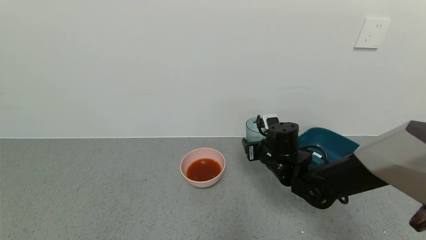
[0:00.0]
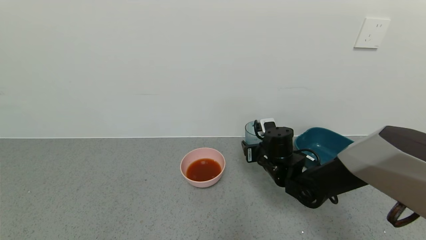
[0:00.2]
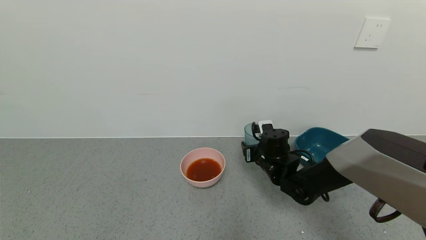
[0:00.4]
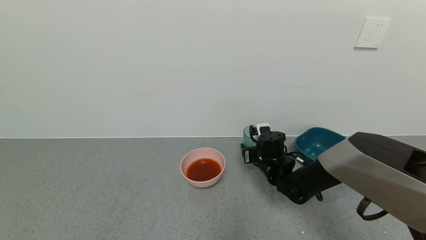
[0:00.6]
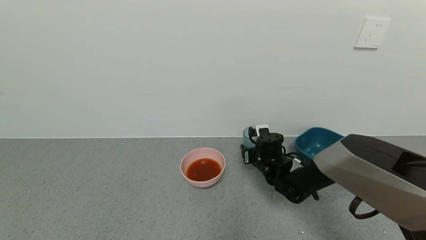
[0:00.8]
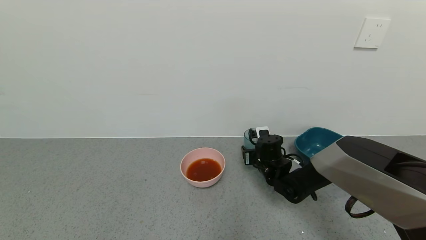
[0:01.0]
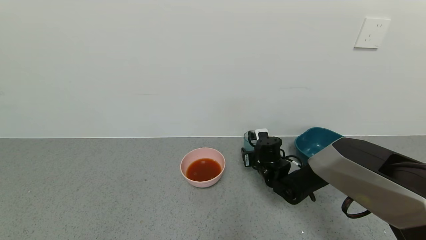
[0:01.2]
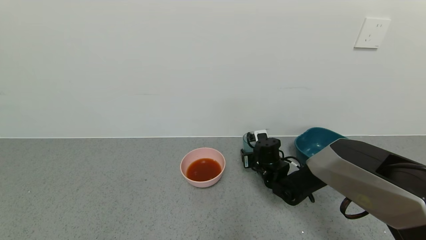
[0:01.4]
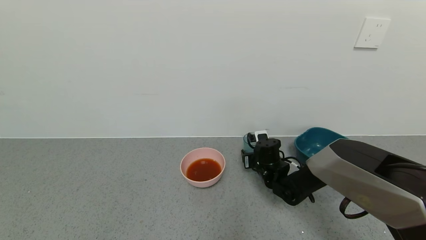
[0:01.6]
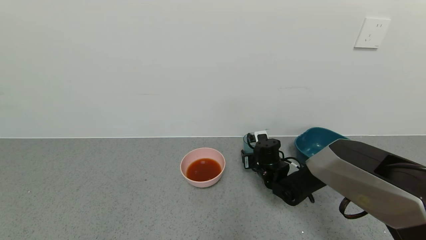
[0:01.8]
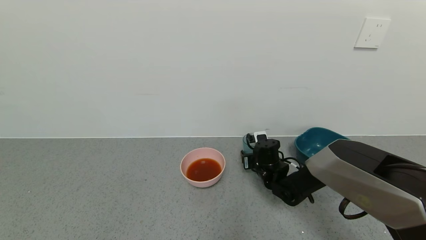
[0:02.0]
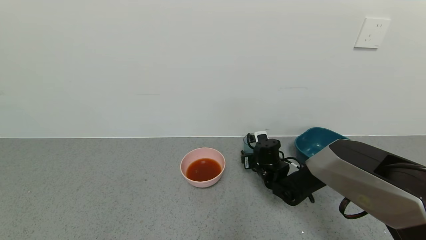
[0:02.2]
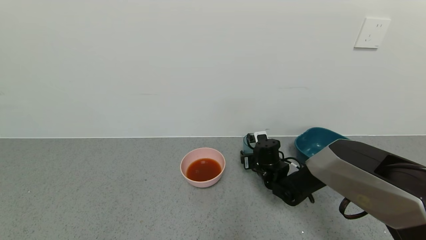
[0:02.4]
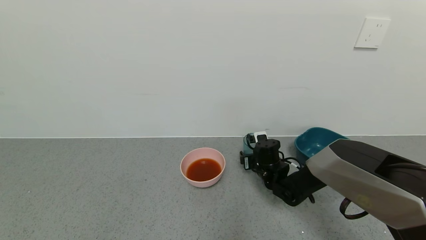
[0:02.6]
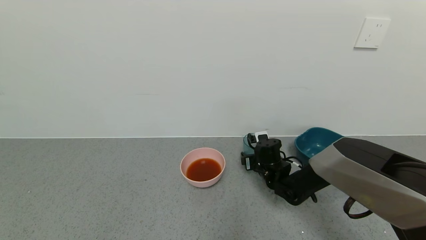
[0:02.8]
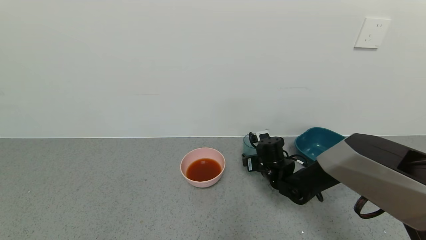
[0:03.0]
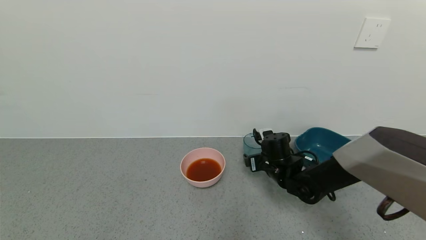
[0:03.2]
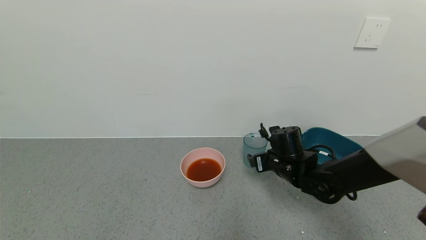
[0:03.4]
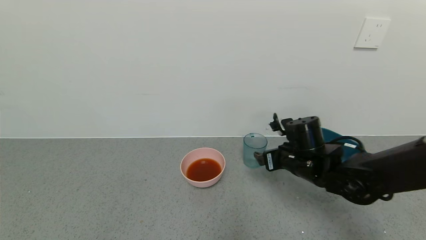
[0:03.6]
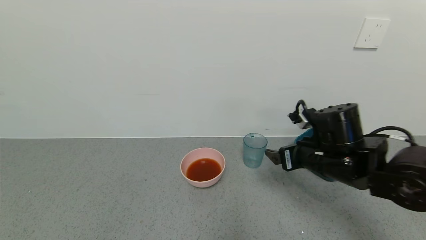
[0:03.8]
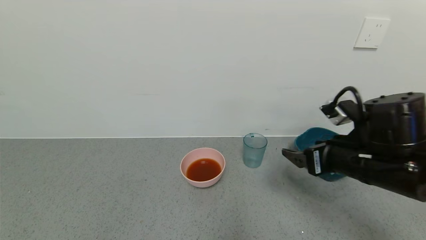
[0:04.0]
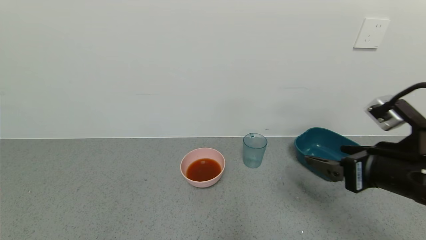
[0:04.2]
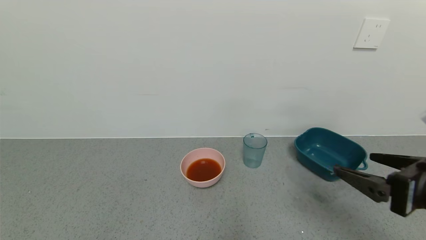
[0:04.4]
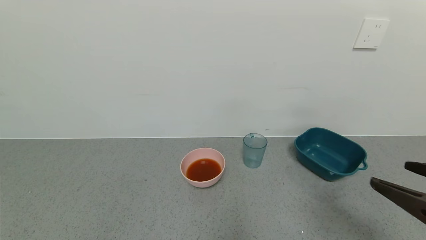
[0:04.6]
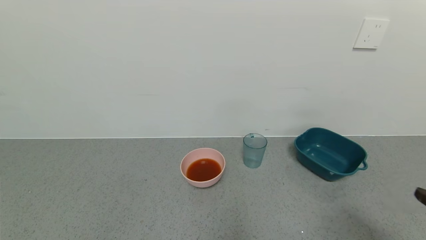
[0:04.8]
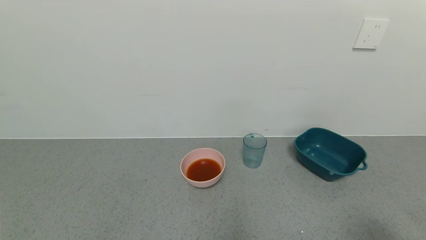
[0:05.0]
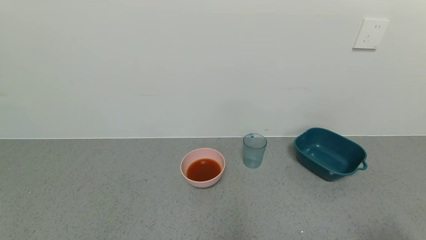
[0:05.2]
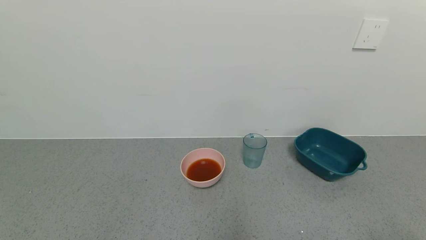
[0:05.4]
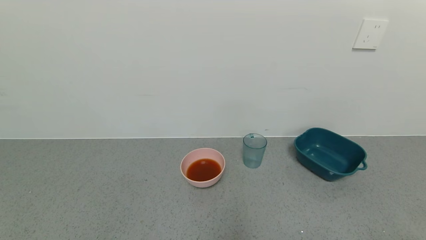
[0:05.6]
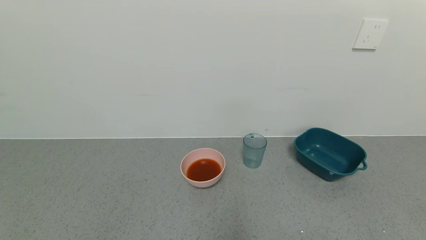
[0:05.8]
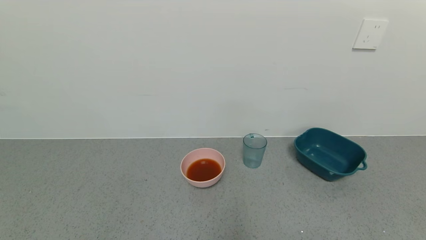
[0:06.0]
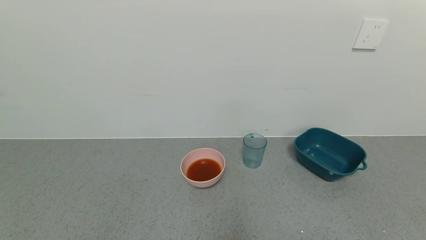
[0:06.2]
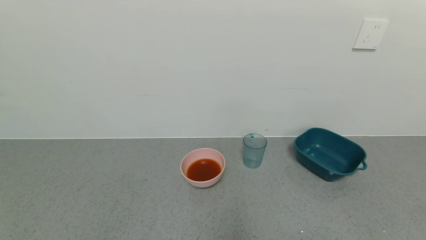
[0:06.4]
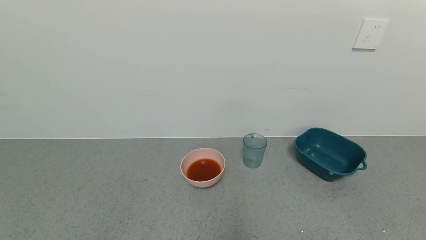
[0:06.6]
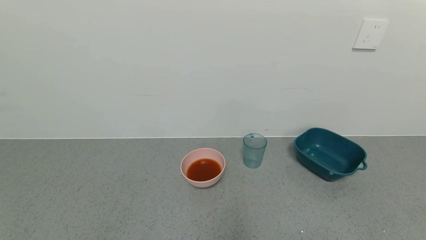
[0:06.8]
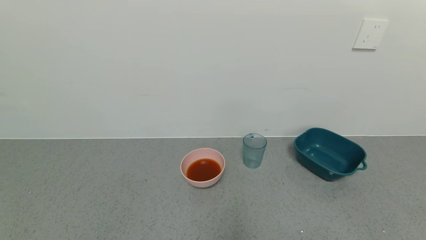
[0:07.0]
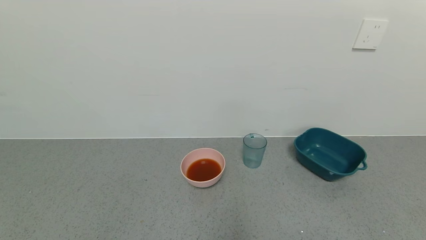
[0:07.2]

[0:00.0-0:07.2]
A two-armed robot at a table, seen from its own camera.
Task of the whole recording: use a gripper to pick up the cup and pour the liquid into a bowl or tray.
Step, 0:00.0 to 0:03.6: Place the glass cup with the right gripper.
0:00.0 to 0:01.4: The right gripper heads downward and forward, covering some 10 cm.
0:01.4 to 0:02.8: The right gripper opens up.
0:02.8 to 0:04.4: The right gripper goes roughly 35 cm backward, upward and to the right.
0:04.4 to 0:05.8: The right gripper shifts some 20 cm backward and to the right.
